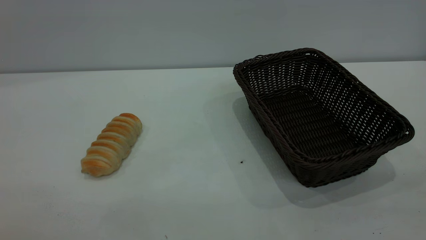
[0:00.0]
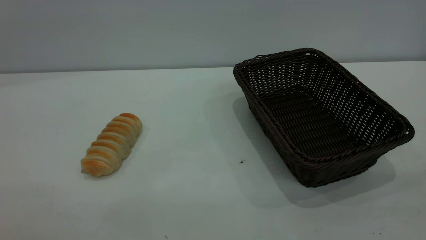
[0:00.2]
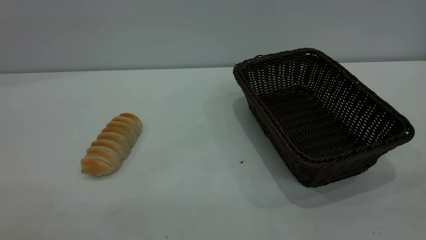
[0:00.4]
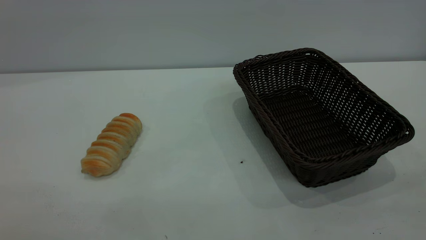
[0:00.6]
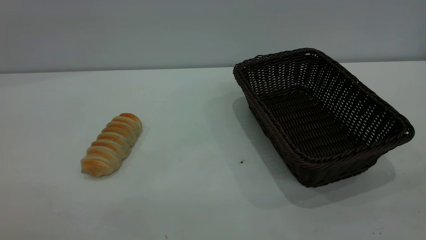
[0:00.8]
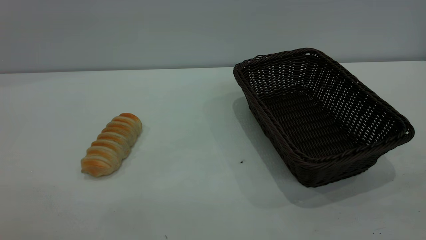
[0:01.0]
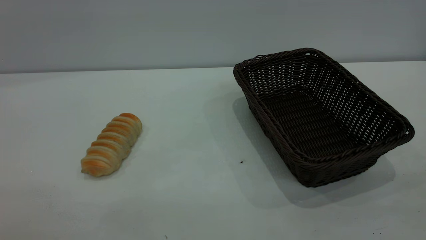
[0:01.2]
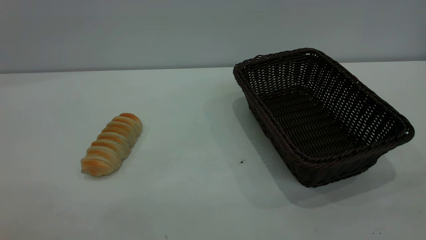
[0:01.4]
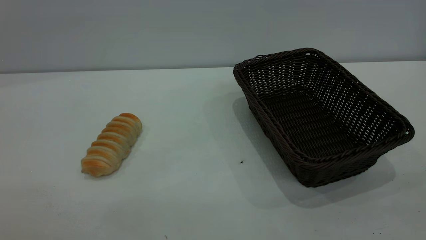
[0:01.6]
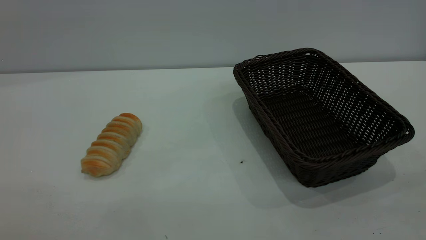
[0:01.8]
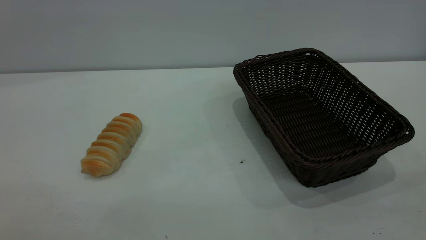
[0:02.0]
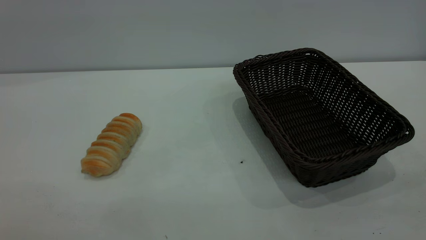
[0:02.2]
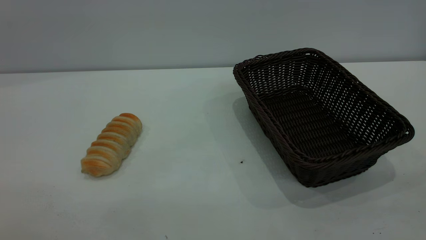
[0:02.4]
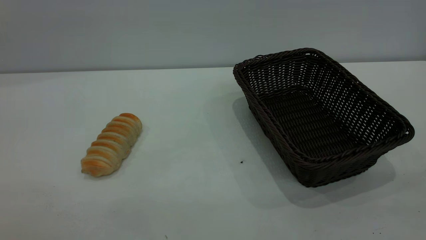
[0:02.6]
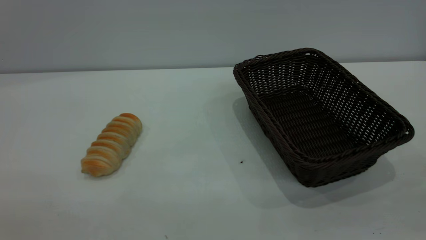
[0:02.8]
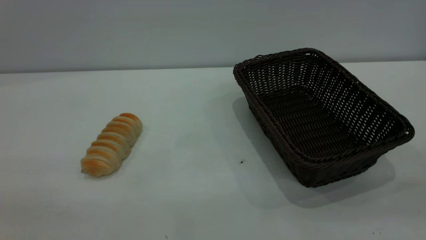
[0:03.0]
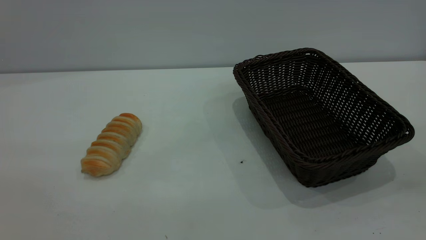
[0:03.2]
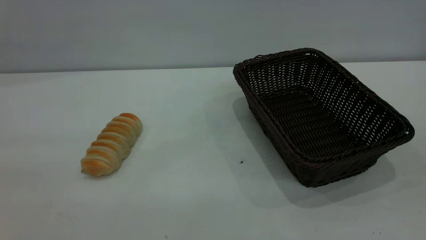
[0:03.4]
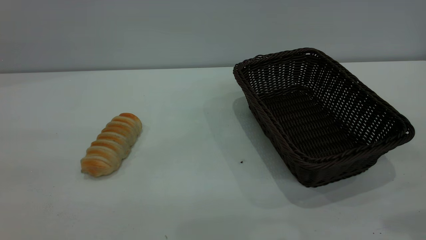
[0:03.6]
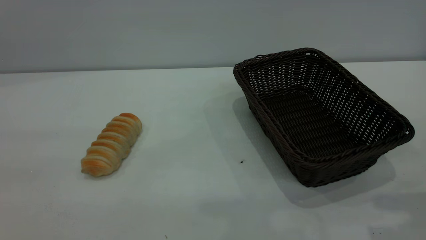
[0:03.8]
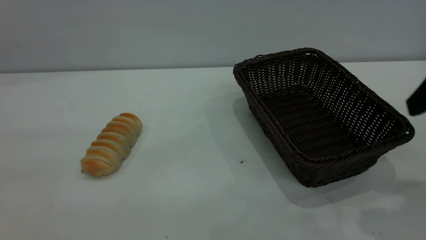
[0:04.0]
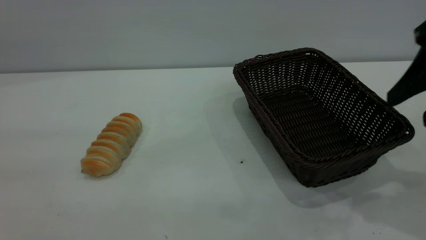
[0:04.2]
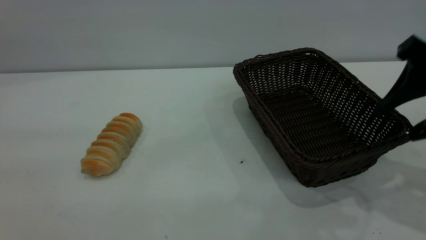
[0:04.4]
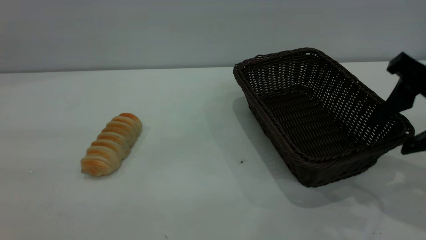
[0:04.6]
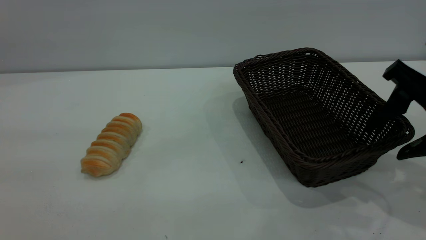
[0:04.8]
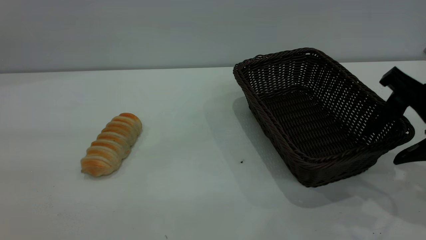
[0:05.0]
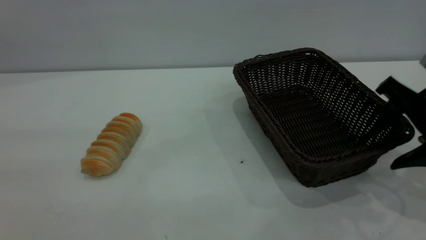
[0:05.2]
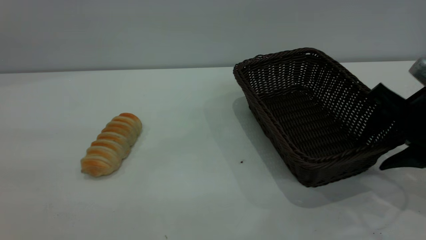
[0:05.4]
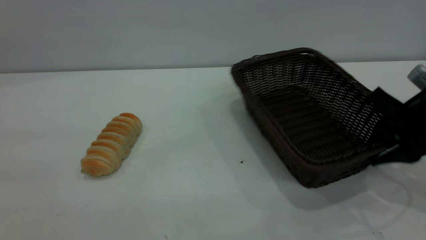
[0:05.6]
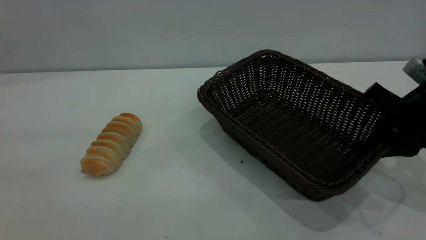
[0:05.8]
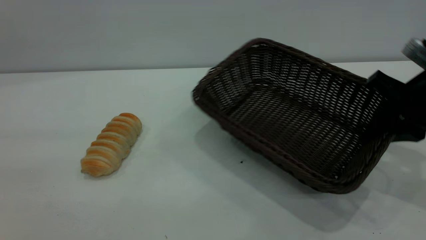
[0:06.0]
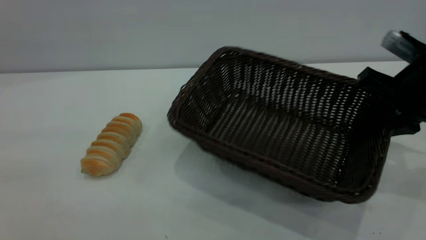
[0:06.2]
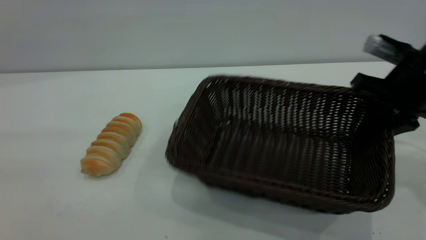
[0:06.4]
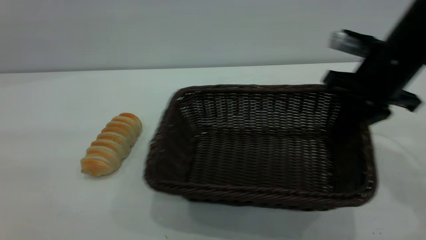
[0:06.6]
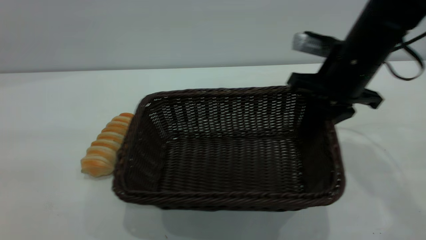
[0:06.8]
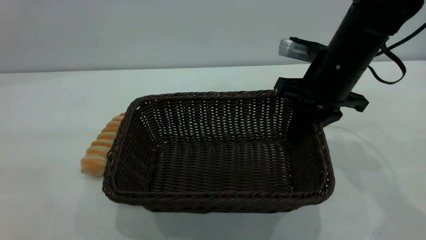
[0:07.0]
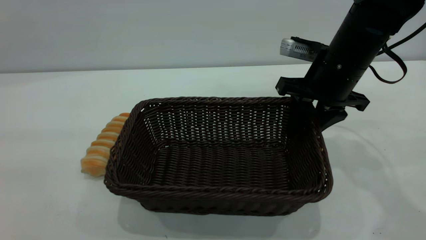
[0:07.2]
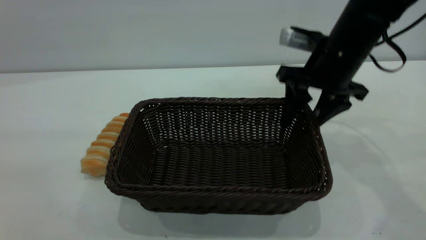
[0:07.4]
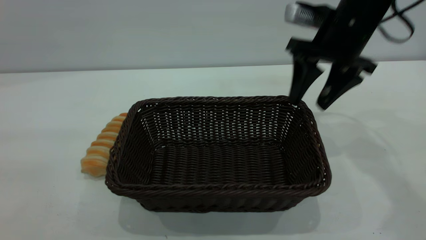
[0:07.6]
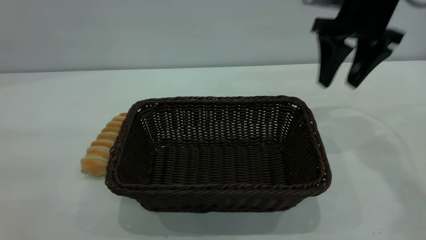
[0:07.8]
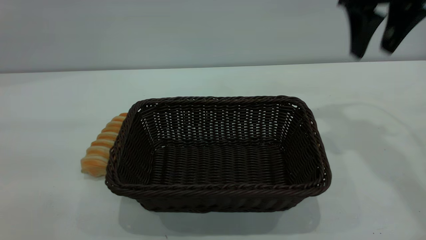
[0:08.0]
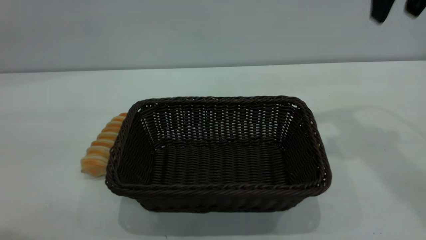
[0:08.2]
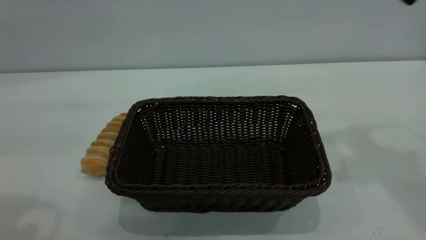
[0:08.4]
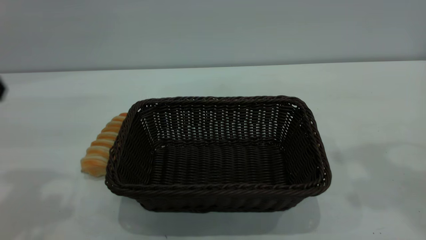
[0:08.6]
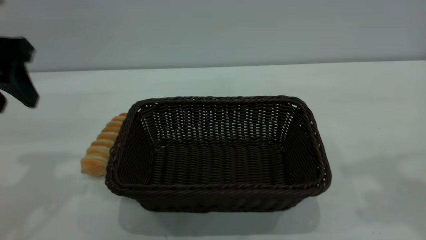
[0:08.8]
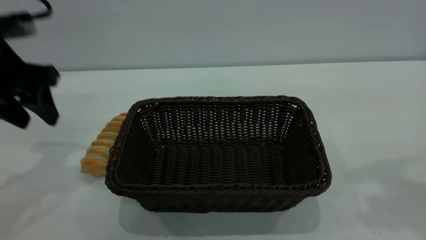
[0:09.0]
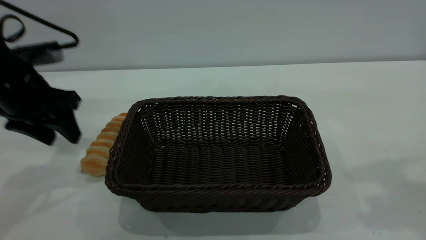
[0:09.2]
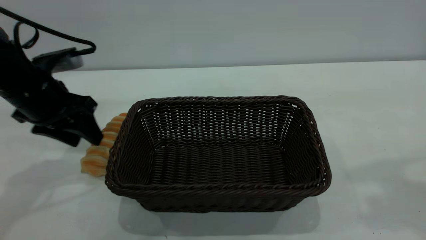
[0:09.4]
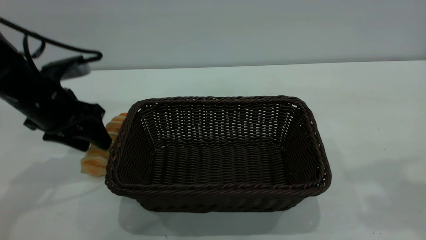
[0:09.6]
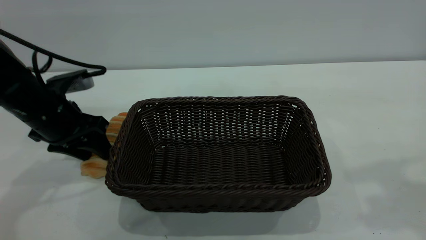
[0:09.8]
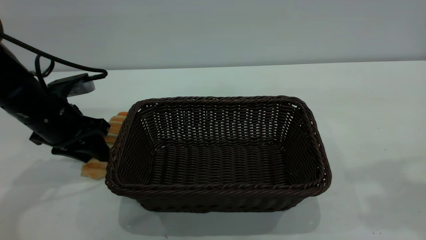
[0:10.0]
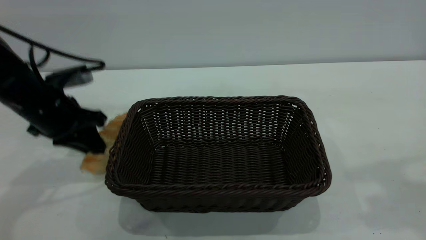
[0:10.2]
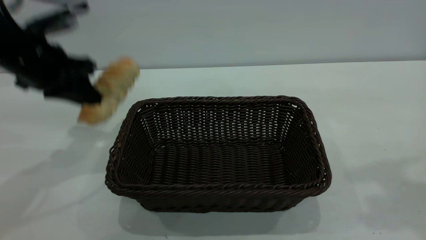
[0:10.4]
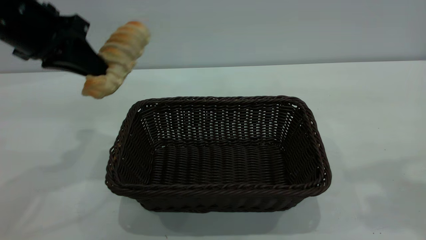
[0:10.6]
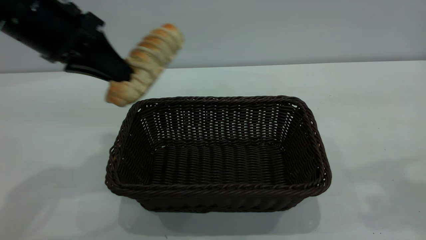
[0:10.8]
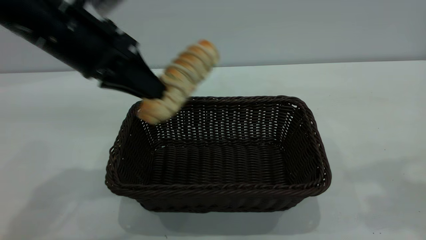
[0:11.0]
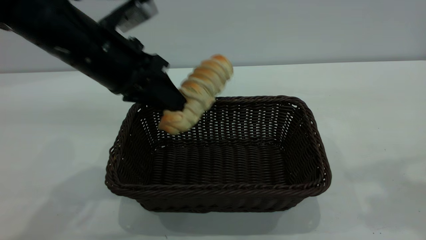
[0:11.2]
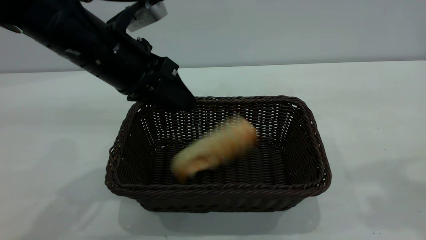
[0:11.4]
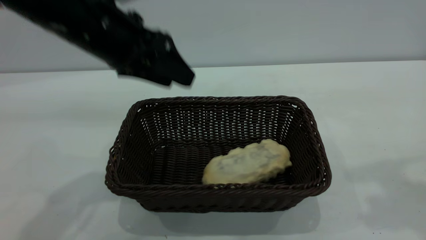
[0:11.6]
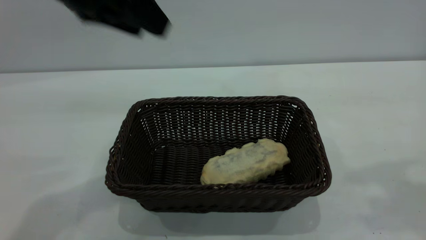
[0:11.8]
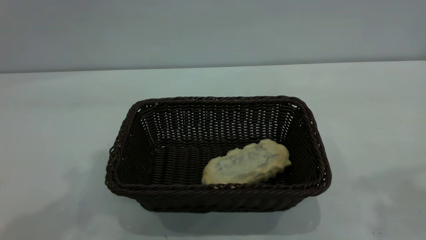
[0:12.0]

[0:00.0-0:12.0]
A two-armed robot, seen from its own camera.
Task of the whole recording: One hand grasps the black basket and places it in the middle of the table, while the other hand picks up the long bread and puts it into the black basket.
Step, 0:00.0 to 0:07.6: Move the basket to the center of view.
Step, 0:10.6 to 0:11.6: place the bread into the basket.
0:00.0 to 0:01.6: The two grippers keep their place.
0:03.0 to 0:04.4: The right gripper is displaced forward and downward by some 25 cm.
0:04.4 to 0:06.0: The right gripper moves downward and forward, roughly 10 cm, and closes its fingers.
0:06.0 to 0:07.6: The right gripper is displaced forward, to the left and upward by roughly 15 cm, and opens.
0:07.6 to 0:09.0: The right gripper goes approximately 25 cm upward and backward. The left gripper heads forward and downward, covering roughly 30 cm.
0:09.0 to 0:10.4: The left gripper reaches approximately 10 cm downward, then returns, and closes up.
0:10.4 to 0:12.0: The left gripper goes roughly 20 cm upward and backward, and opens its fingers.

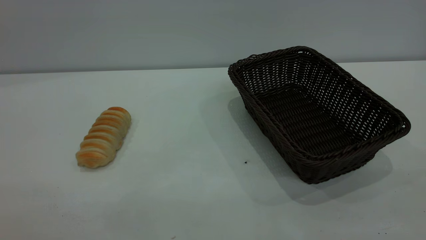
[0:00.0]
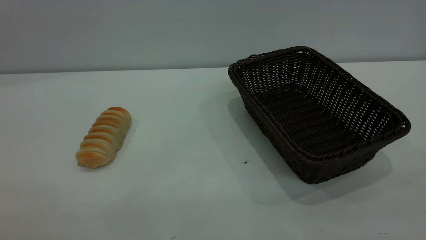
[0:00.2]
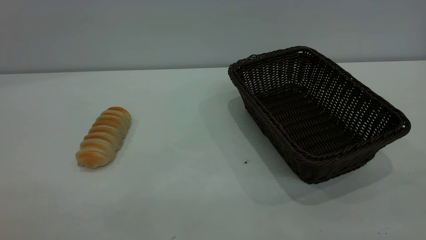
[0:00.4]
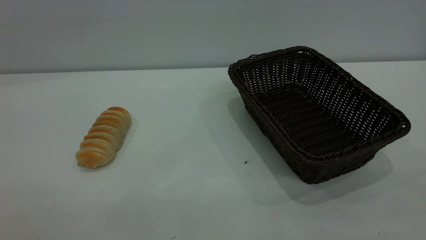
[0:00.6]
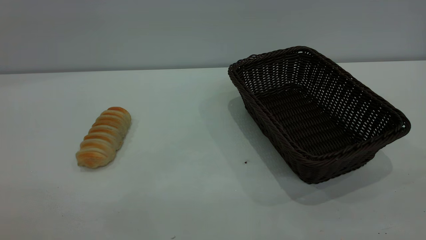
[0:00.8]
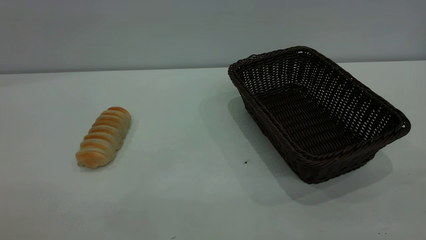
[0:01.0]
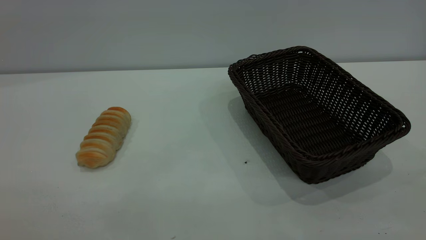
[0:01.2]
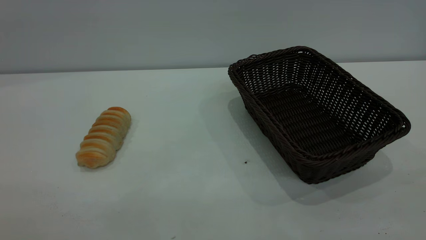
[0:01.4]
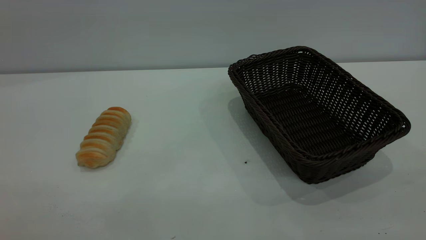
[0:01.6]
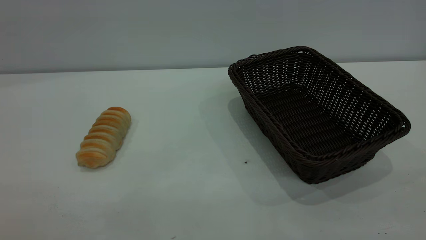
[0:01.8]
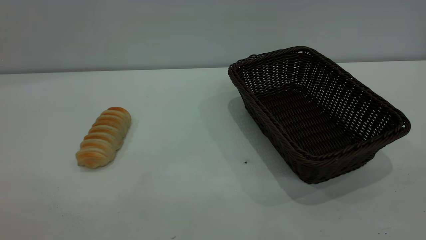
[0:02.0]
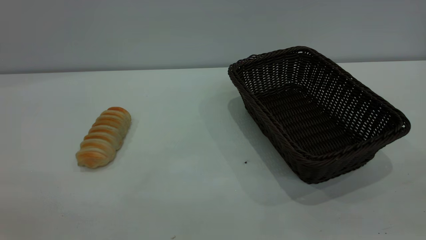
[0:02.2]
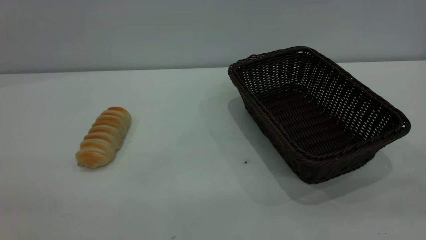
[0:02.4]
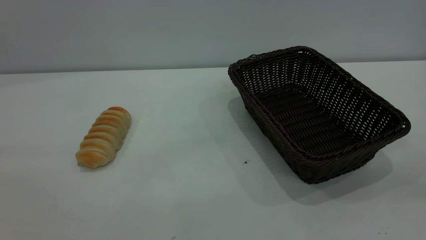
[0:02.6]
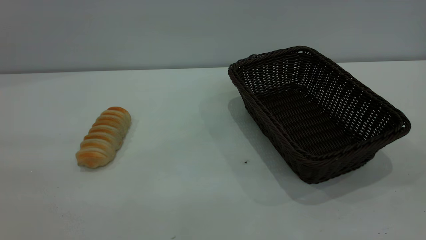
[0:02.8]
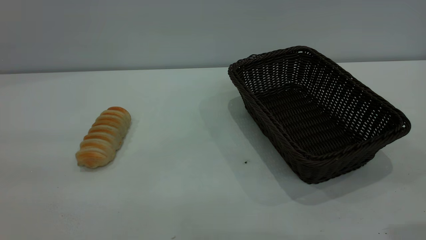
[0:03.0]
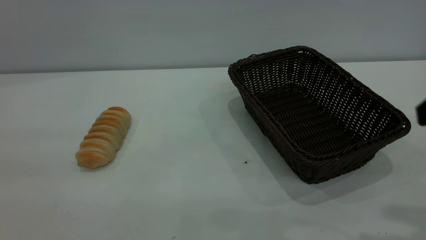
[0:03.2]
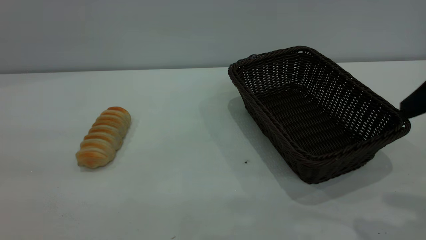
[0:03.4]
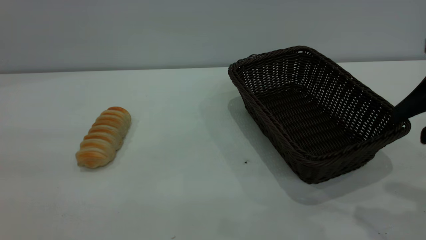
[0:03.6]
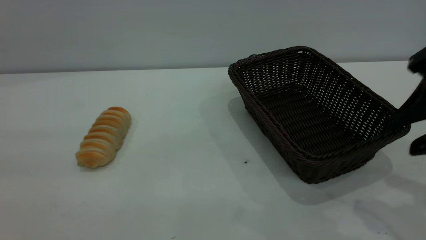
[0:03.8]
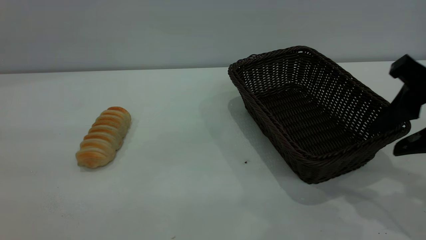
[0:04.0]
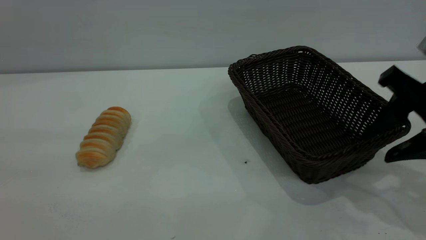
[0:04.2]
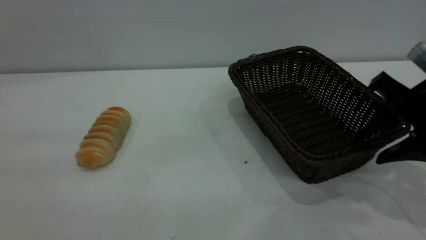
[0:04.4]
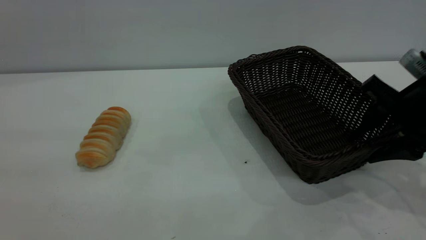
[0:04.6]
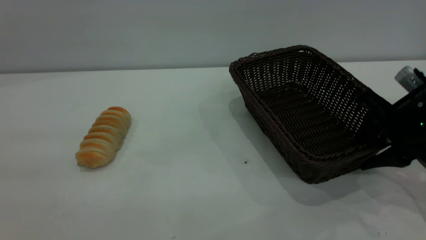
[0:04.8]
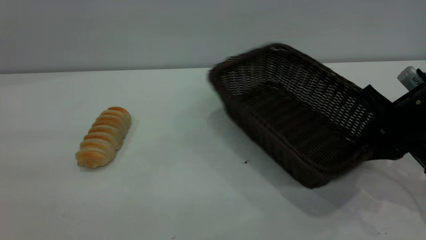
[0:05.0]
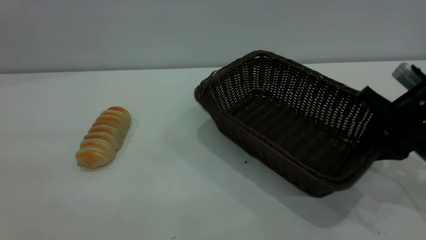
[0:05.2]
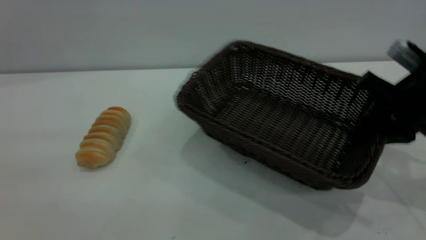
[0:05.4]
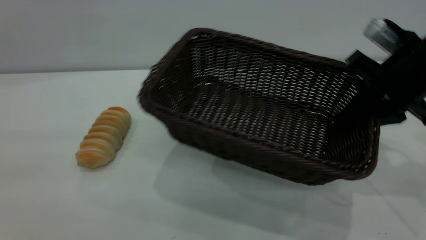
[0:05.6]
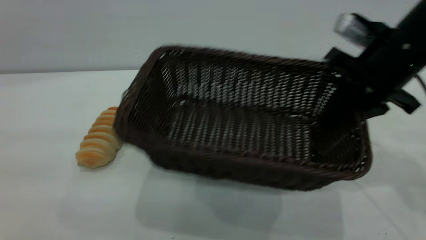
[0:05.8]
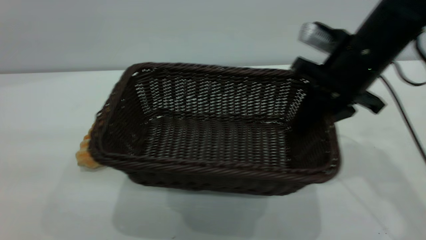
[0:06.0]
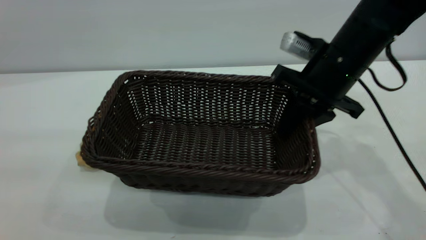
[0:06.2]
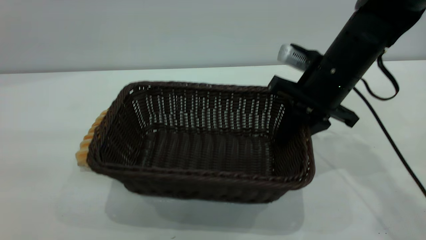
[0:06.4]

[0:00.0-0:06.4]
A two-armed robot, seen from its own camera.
Task of the whole recording: One hand grasps the black basket and places it in the middle of the table, while the other hand picks up the long bread and puts it into the black basket.
0:00.0 to 0:01.6: Both grippers stay put.
0:03.2 to 0:04.8: The right gripper moves downward and forward, approximately 20 cm, and closes its fingers.
0:04.8 to 0:06.4: The right gripper shifts approximately 15 cm to the left and forward, and closes up.
